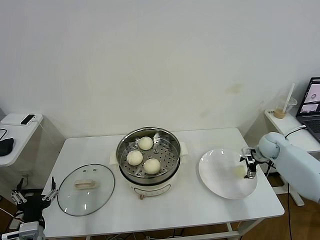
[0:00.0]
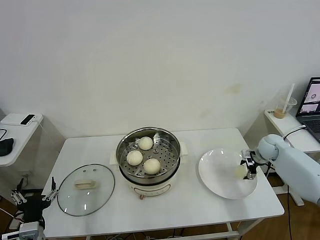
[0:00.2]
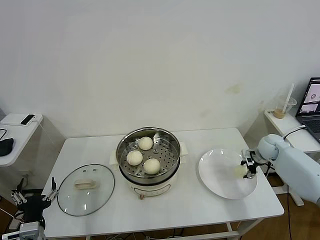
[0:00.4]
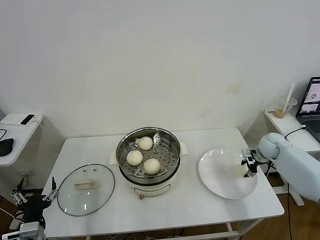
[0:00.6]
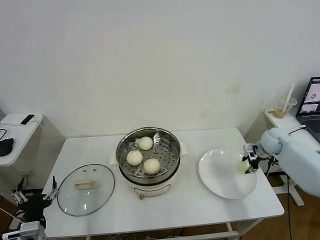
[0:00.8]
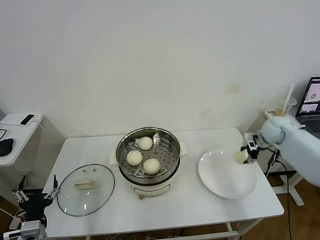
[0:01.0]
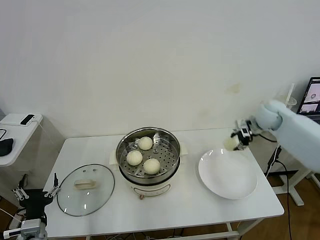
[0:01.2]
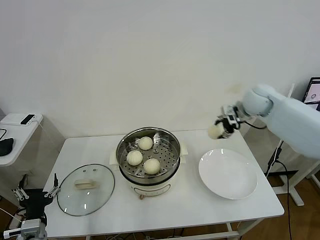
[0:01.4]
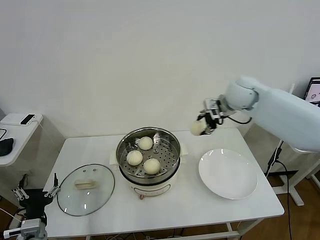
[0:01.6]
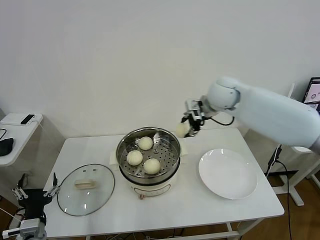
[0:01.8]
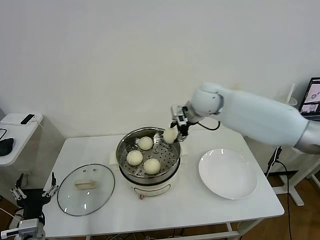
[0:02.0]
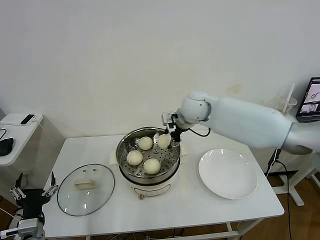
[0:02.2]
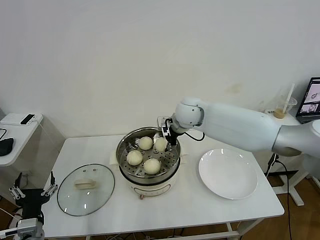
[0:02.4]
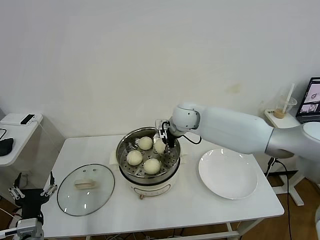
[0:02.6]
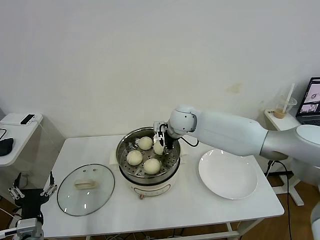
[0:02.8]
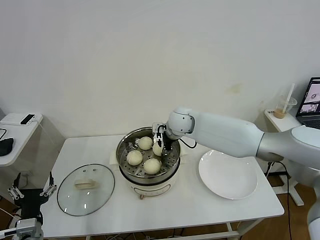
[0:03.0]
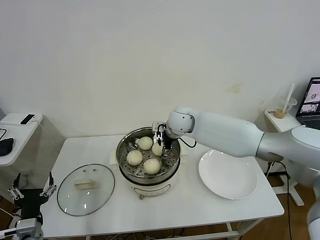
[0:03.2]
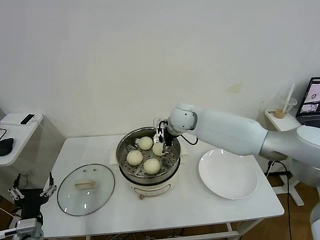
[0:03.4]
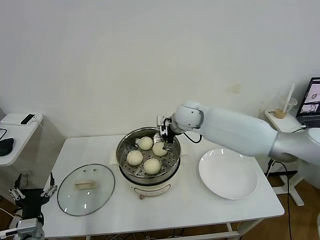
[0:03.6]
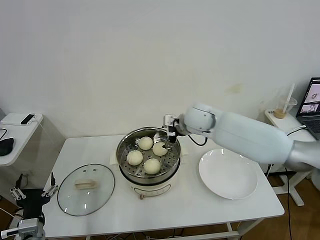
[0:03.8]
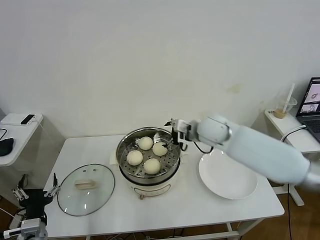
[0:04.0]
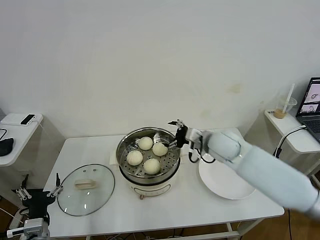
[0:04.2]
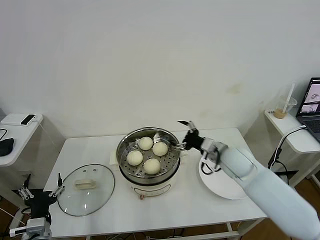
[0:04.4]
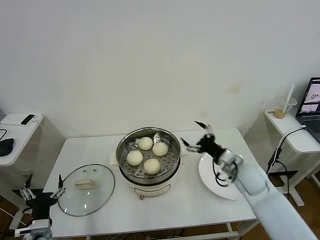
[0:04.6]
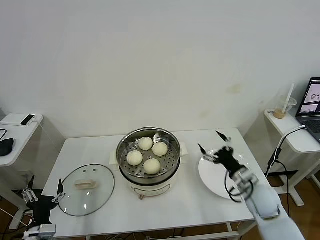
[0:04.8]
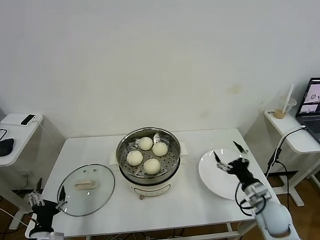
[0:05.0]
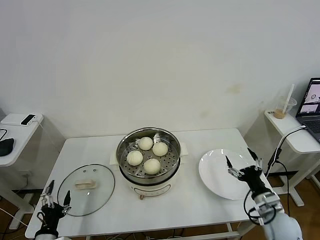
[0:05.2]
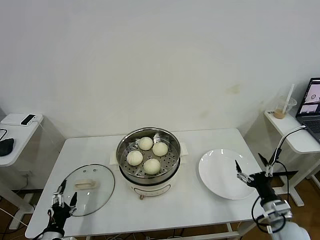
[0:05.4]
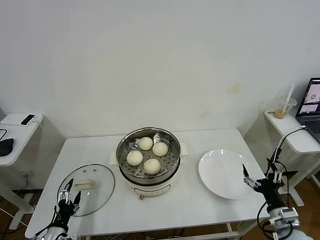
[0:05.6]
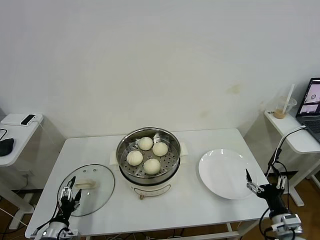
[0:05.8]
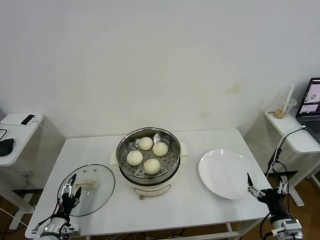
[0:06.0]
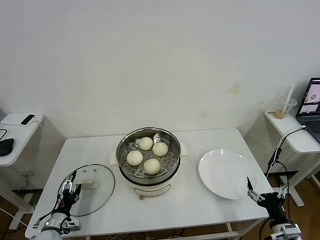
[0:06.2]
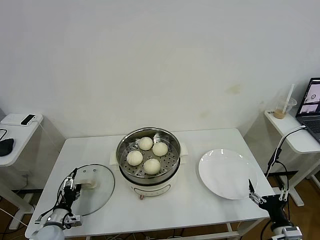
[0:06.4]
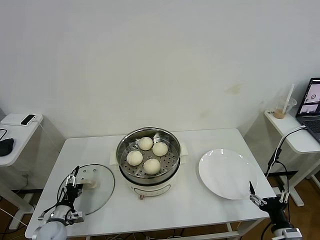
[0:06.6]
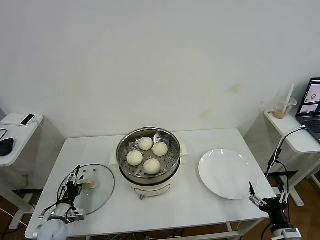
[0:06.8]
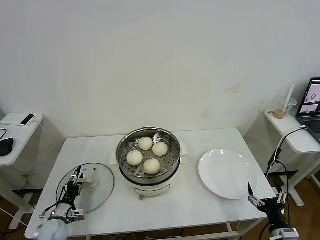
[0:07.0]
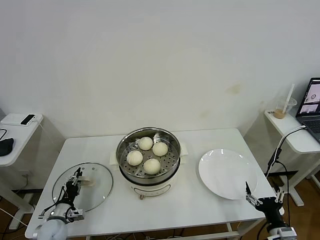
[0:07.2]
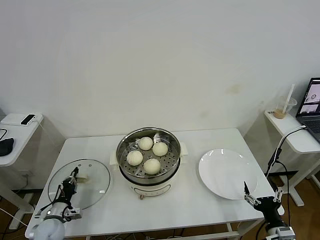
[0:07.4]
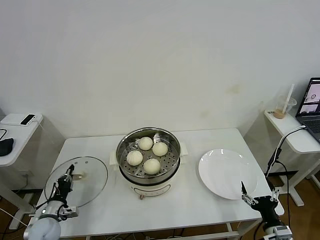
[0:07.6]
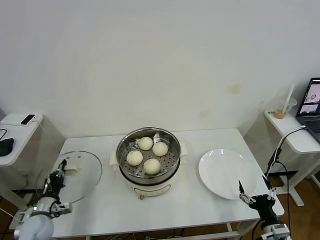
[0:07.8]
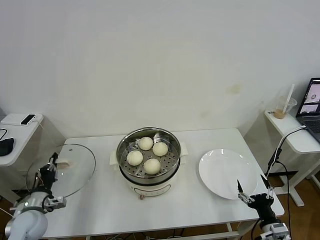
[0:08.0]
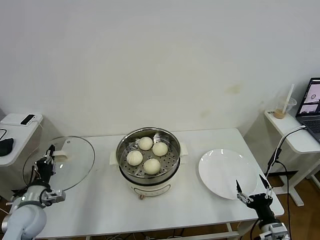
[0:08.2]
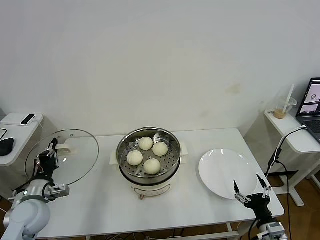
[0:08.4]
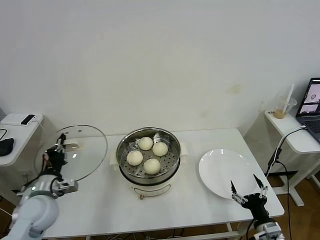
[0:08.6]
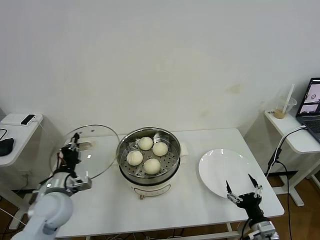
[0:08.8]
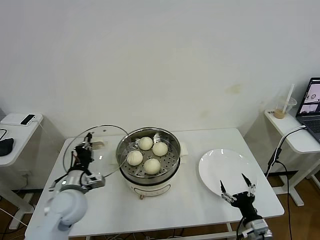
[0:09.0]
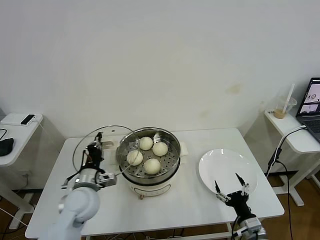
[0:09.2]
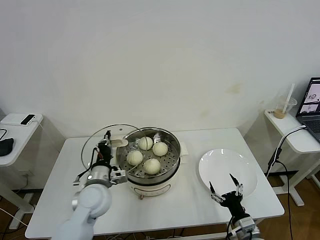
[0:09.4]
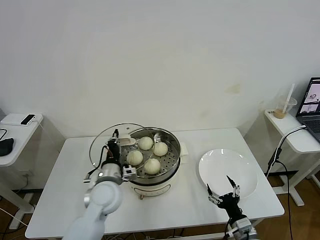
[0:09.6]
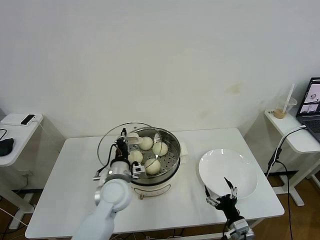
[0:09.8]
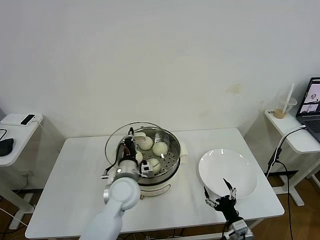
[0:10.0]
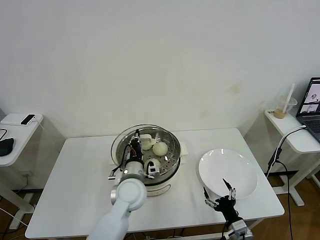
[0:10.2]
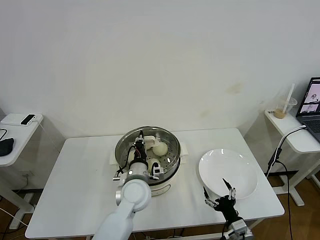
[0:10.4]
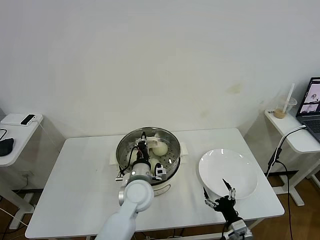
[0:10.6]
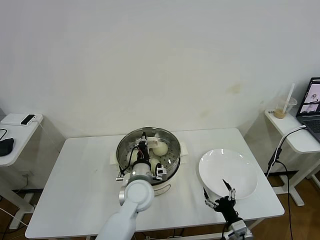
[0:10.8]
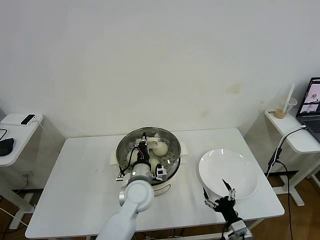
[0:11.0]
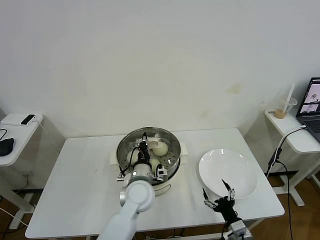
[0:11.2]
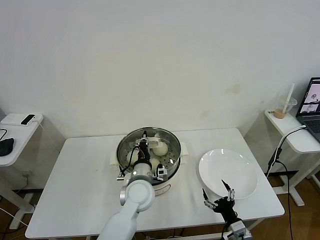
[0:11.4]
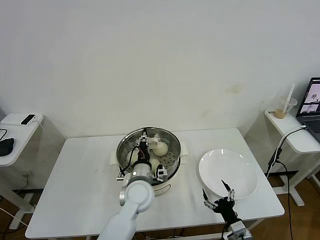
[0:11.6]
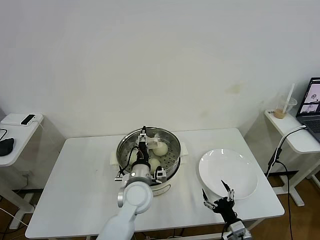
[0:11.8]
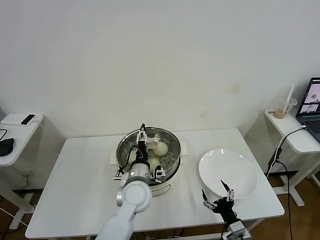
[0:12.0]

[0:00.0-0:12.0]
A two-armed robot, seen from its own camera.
Task of the whole recording: take steamed baozi put them in steamer then cover it.
Step, 0:00.8 to 0:03.6: Place the baozi on the steamer with right gripper.
Step, 0:03.8 to 0:07.6: Grasp the pot lid with left gripper.
0:00.0 to 0:01.6: The right gripper moves upward and to the left, some 30 cm, and closes.
0:01.6 to 0:03.0: The right gripper shifts some 20 cm to the left and downward.
0:03.0 to 0:04.4: The right gripper moves to the right and backward, some 20 cm, and opens up.
0:04.4 to 0:06.0: The left gripper is displaced downward and to the left by about 15 cm. The right gripper moves backward, to the right and downward, approximately 30 cm.
0:06.0 to 0:07.6: The left gripper moves forward, approximately 5 cm, and closes its fingers.
0:07.6 to 0:09.0: The left gripper shifts roughly 20 cm upward and to the right.
0:09.0 to 0:10.4: The left gripper shifts roughly 20 cm to the right; the right gripper shifts by roughly 5 cm.
0:10.4 to 0:12.0: The left gripper opens its fingers.

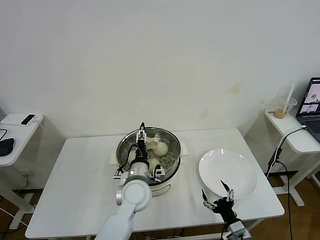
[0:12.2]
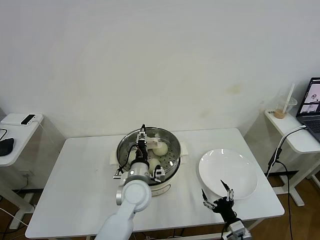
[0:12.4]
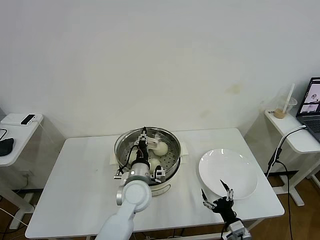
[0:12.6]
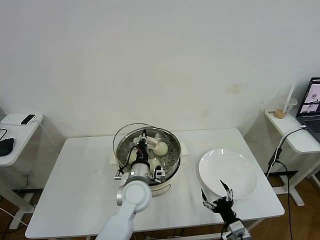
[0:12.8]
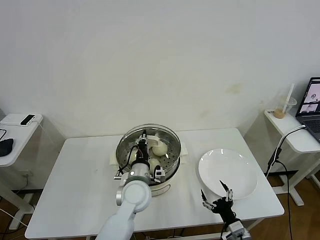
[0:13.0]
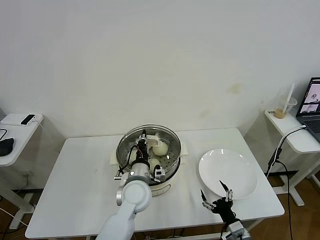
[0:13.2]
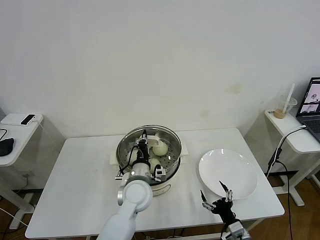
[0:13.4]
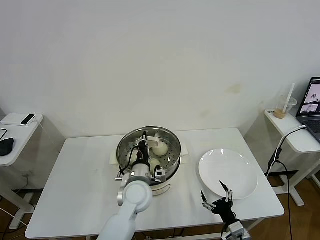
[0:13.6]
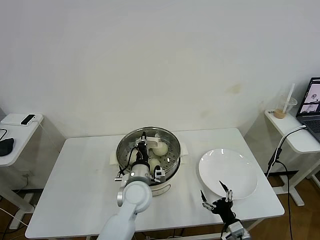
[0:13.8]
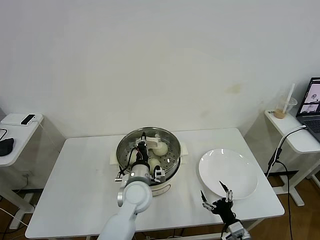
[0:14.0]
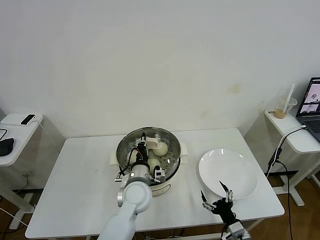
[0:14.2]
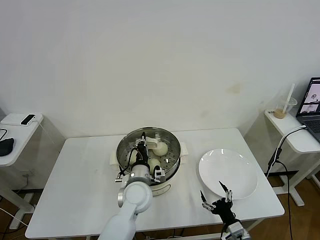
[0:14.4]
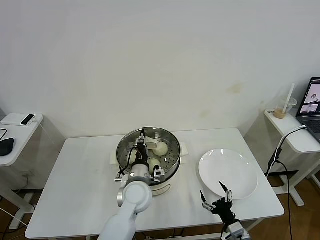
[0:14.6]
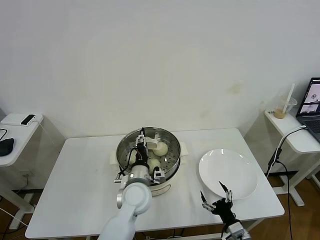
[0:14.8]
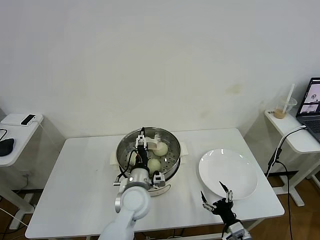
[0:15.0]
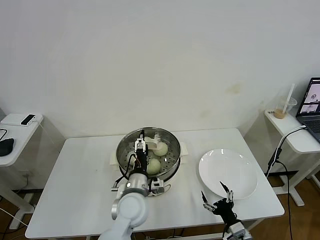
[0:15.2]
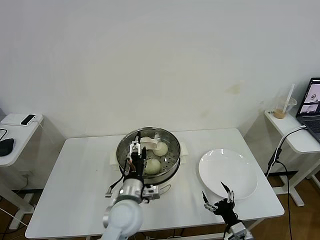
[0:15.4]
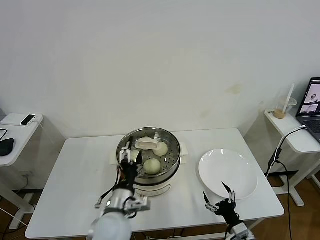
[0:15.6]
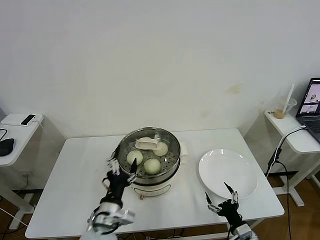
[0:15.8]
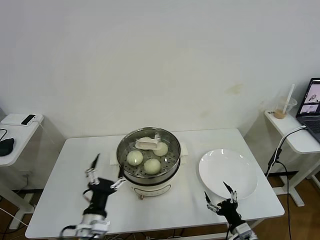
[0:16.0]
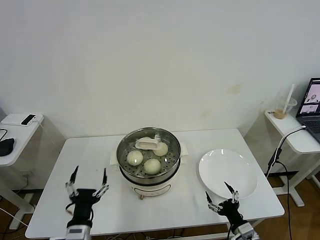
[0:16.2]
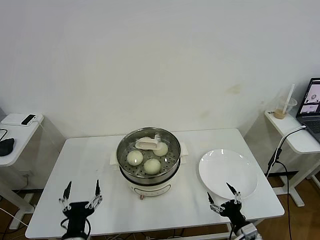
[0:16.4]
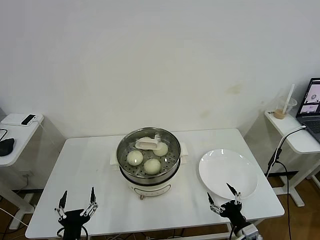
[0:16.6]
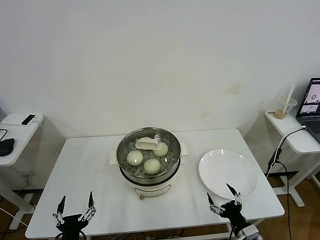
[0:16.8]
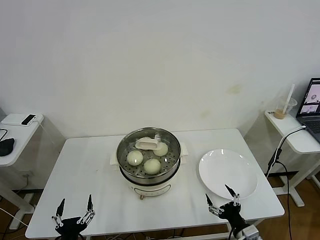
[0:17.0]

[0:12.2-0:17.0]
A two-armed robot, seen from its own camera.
Task of the whole recording: take steamed baozi put them in steamer then cover it.
Step, 0:12.2 to 0:15.4: Place the pot lid on the steamer with left gripper.
0:12.2 to 0:13.8: The left gripper closes up.
0:13.8 to 0:15.4: The left gripper heads backward, covering about 5 cm, and opens its fingers.
0:15.4 to 0:17.0: The left gripper heads backward and to the left, covering some 25 cm.
